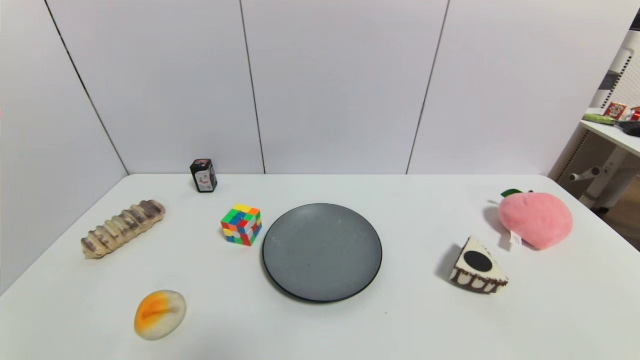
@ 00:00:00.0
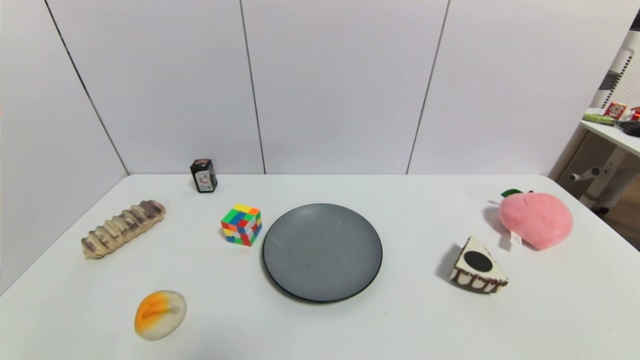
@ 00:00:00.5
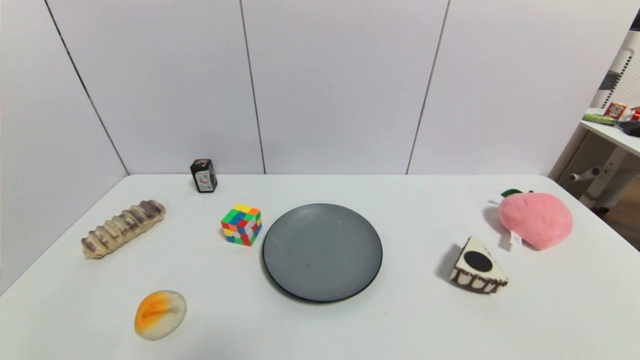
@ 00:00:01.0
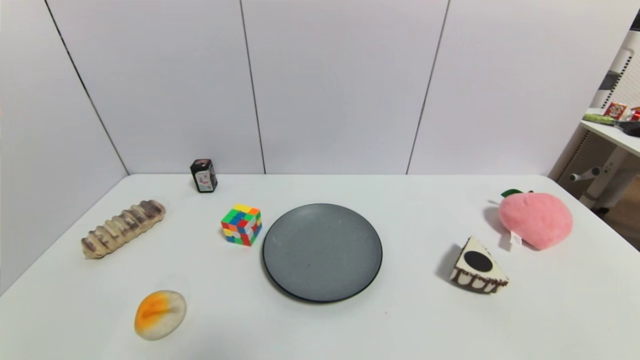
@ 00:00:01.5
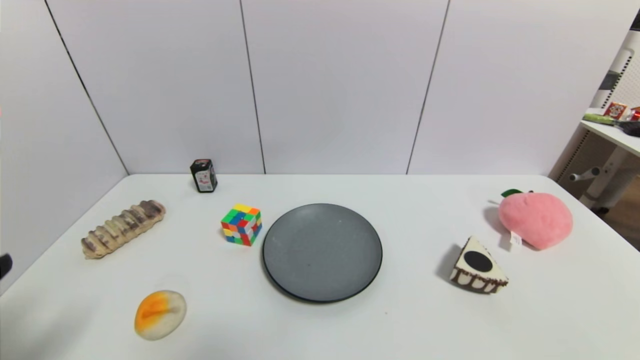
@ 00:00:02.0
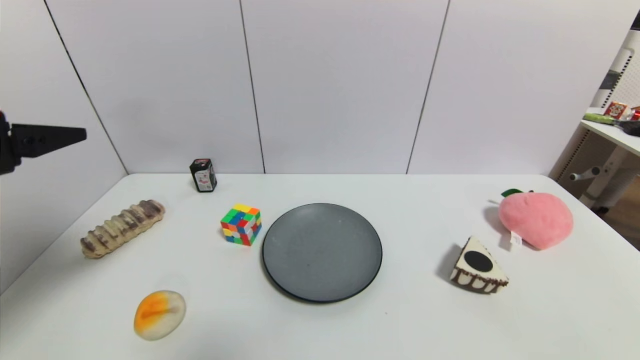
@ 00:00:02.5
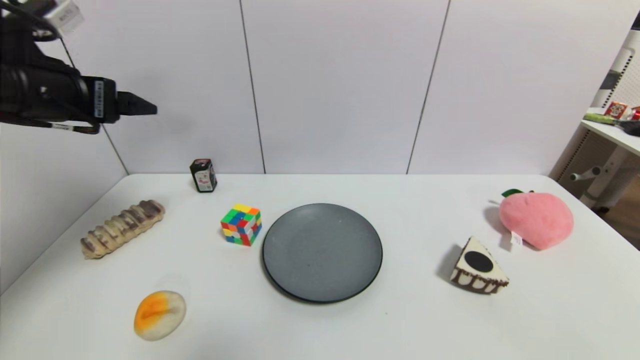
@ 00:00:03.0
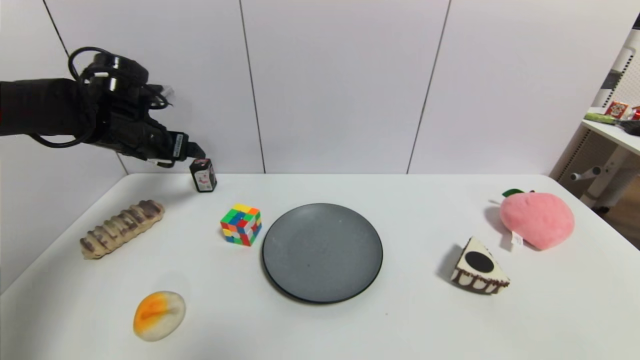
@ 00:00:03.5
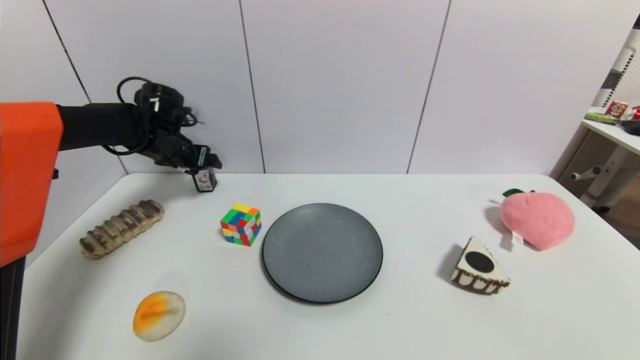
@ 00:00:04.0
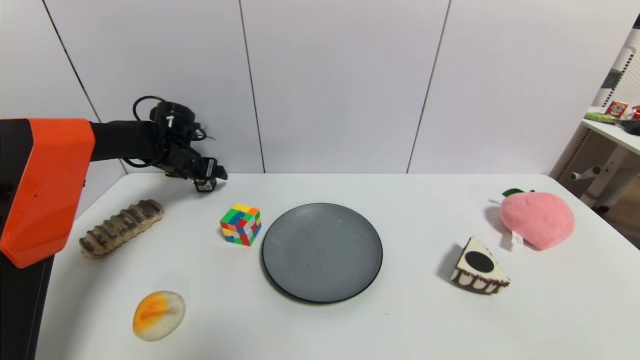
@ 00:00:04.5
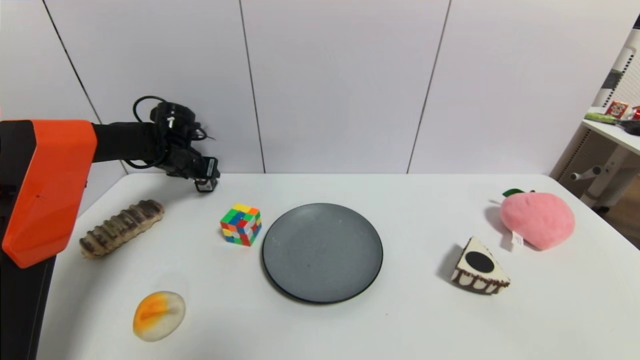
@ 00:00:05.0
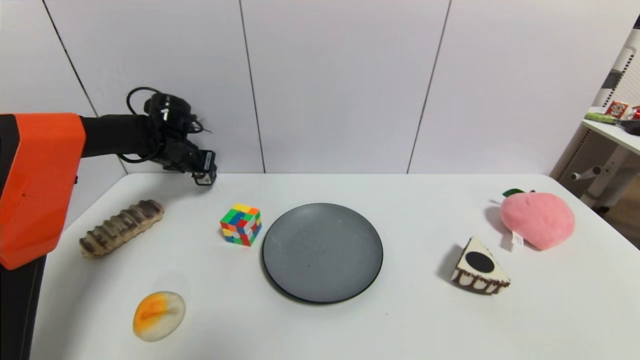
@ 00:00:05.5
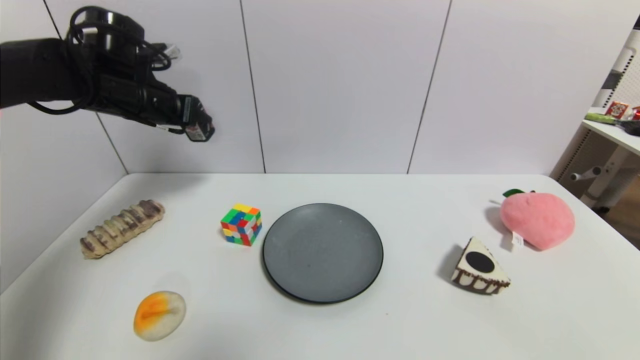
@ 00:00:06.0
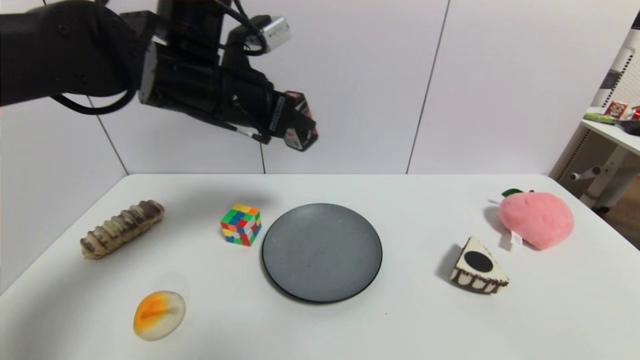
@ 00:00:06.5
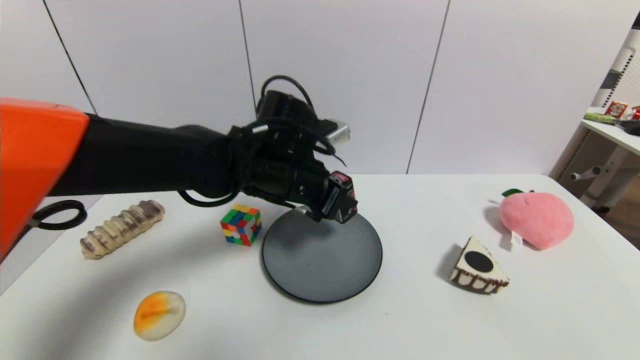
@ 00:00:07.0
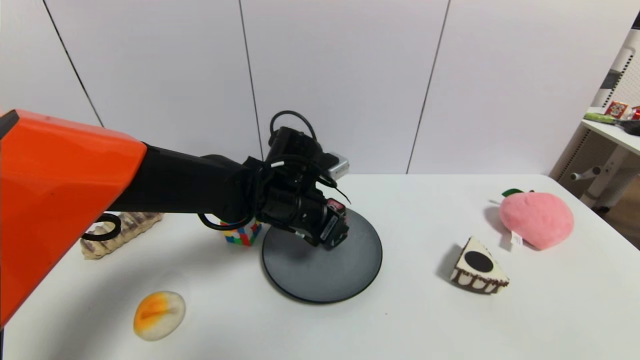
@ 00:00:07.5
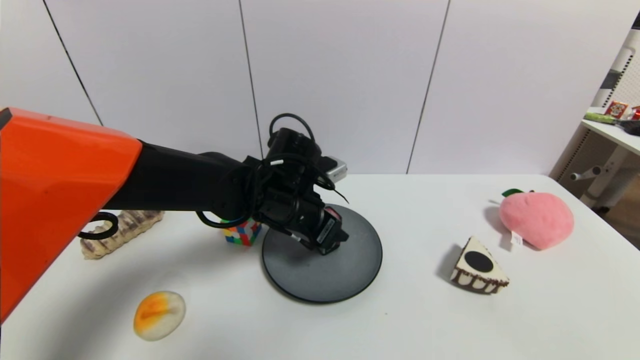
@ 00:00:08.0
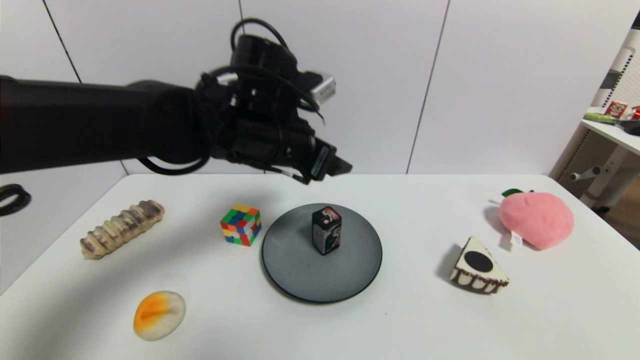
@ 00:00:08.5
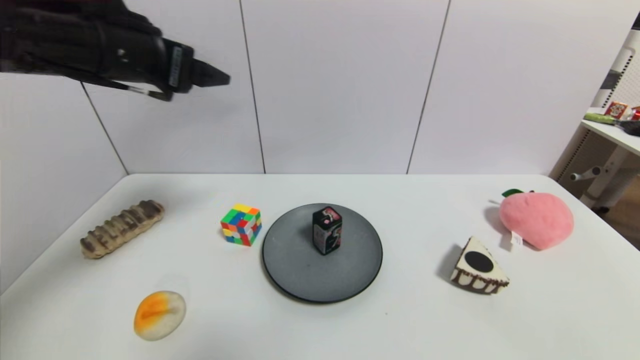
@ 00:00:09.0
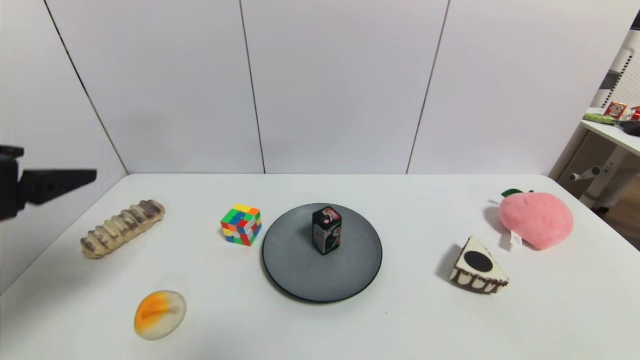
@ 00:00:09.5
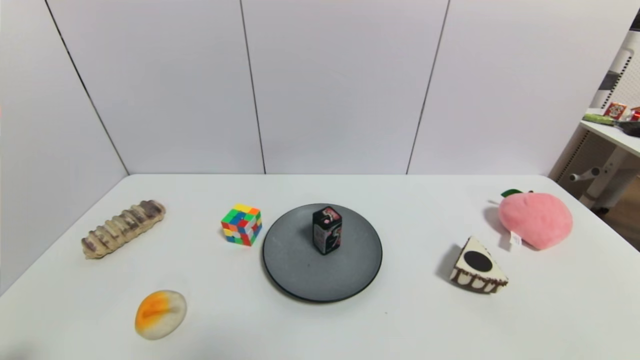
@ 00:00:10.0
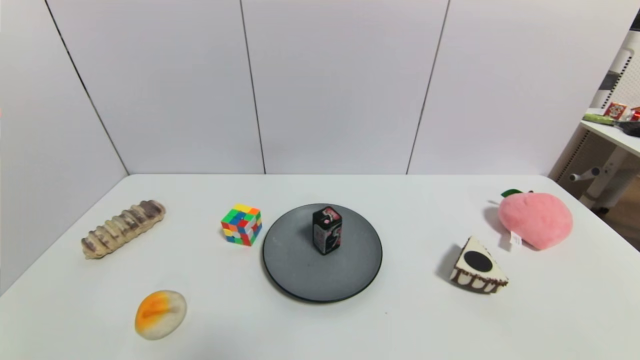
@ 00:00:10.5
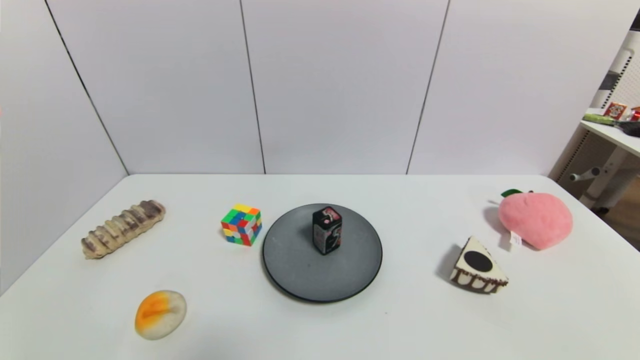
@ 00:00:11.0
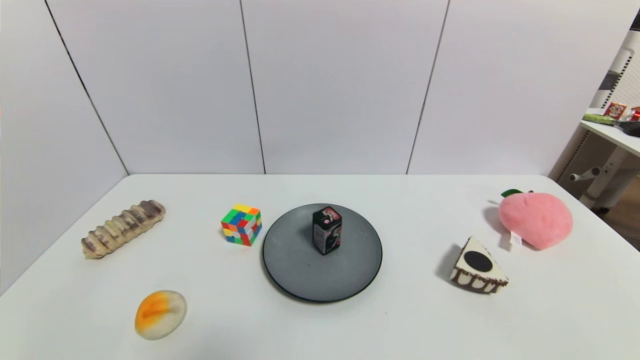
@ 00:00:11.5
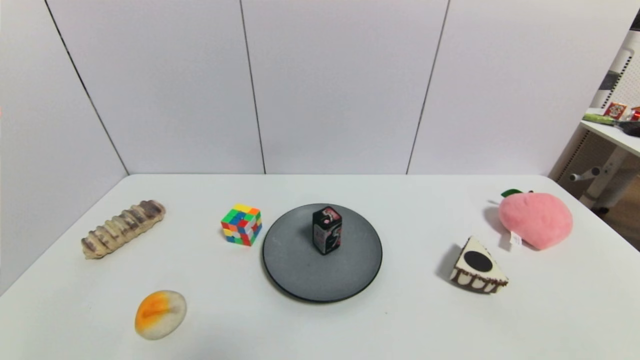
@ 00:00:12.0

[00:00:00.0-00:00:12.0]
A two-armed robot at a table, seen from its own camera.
Task of the whole recording: use a gripper to pick the target object and place on the gray plate.
Step, 00:00:00.0 to 00:00:05.0: Grasp the square chewing gum with the left gripper.
Step, 00:00:05.5 to 00:00:08.0: Place the square chewing gum on the gray plate with the left gripper.
00:00:00.0 to 00:00:02.0: The left gripper heads upward, covering about 15 cm.
00:00:02.0 to 00:00:04.0: The left gripper heads forward, covering approximately 40 cm.
00:00:04.0 to 00:00:06.0: The left gripper shifts some 10 cm upward and backward, and closes up.
00:00:06.0 to 00:00:08.0: The left gripper shifts roughly 25 cm to the right and downward, and opens its fingers.
00:00:08.0 to 00:00:10.0: The left gripper heads backward and to the left, covering approximately 40 cm, and opens up.

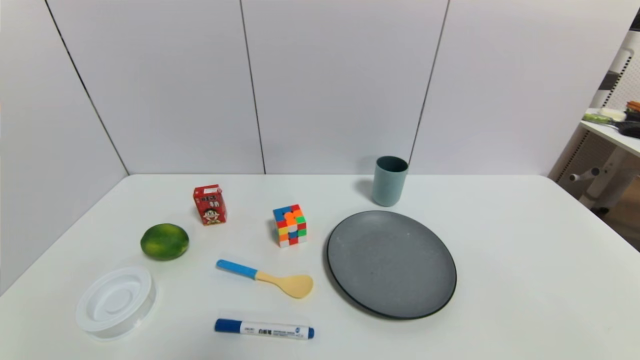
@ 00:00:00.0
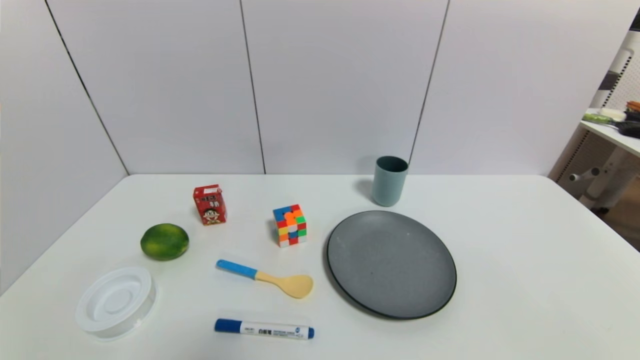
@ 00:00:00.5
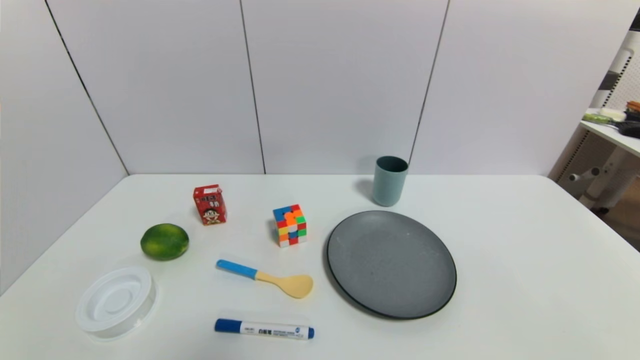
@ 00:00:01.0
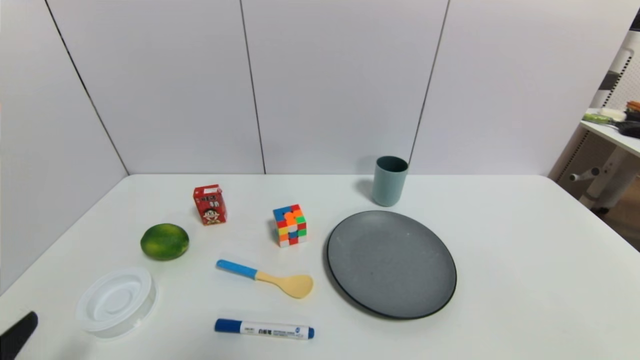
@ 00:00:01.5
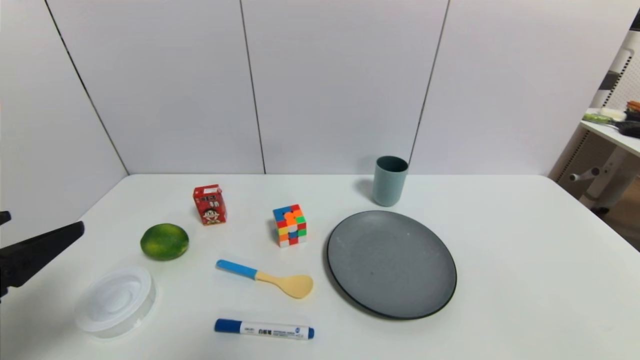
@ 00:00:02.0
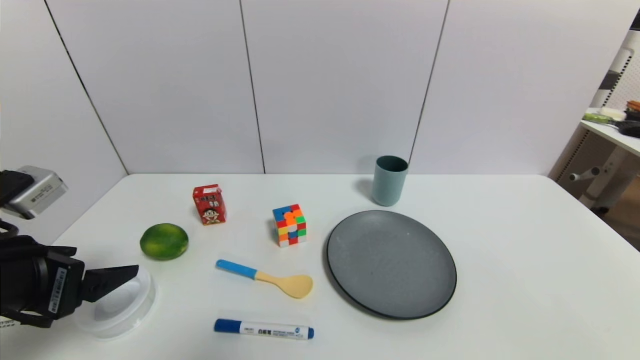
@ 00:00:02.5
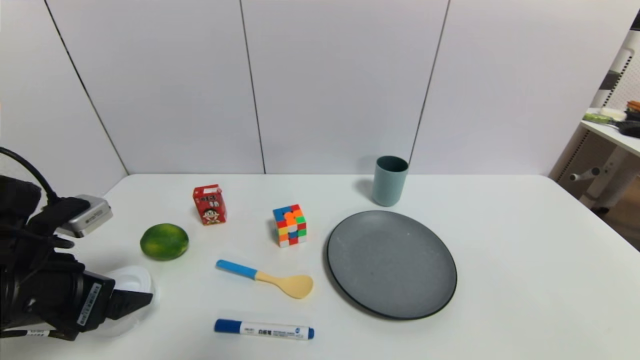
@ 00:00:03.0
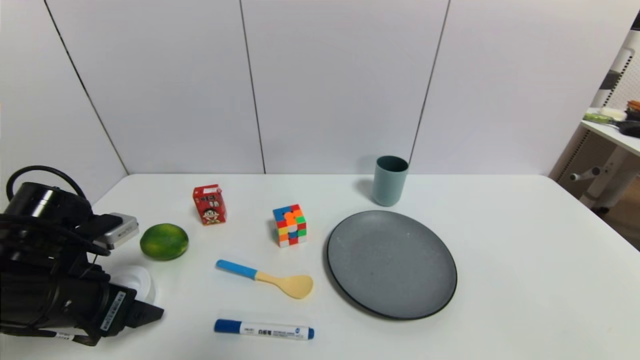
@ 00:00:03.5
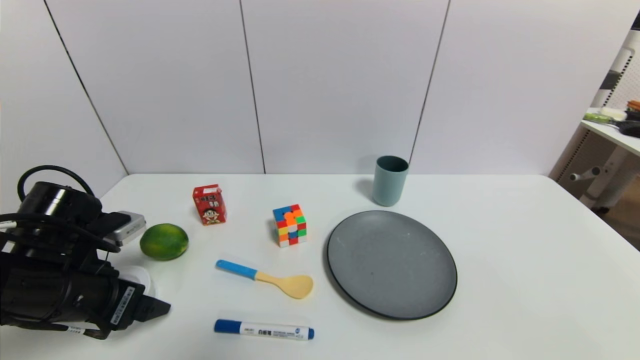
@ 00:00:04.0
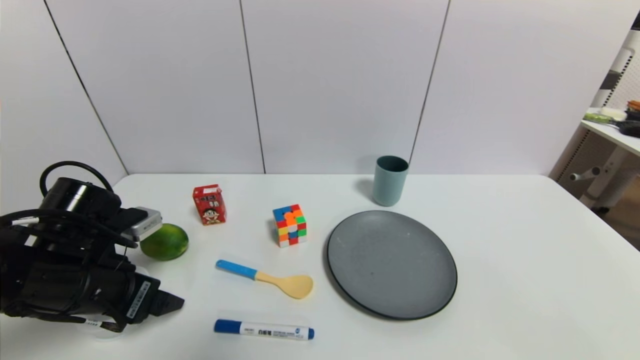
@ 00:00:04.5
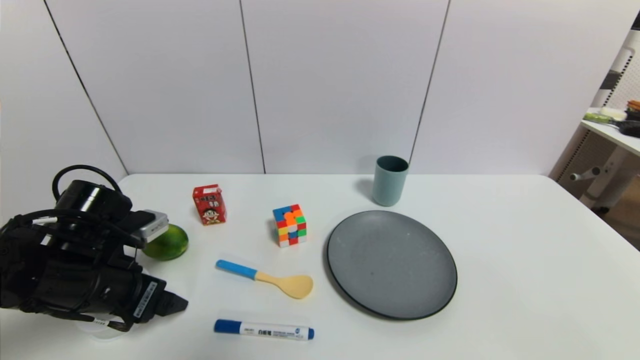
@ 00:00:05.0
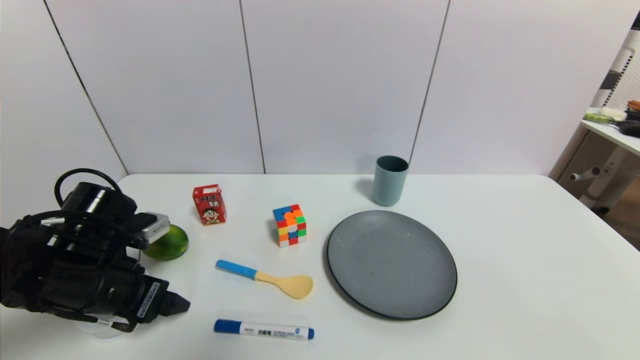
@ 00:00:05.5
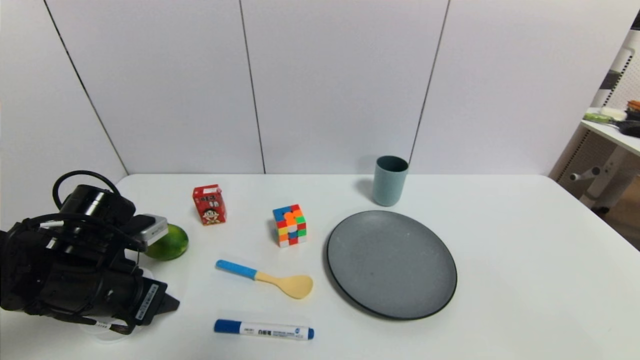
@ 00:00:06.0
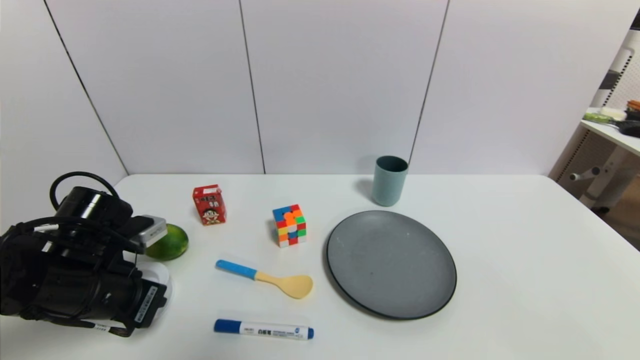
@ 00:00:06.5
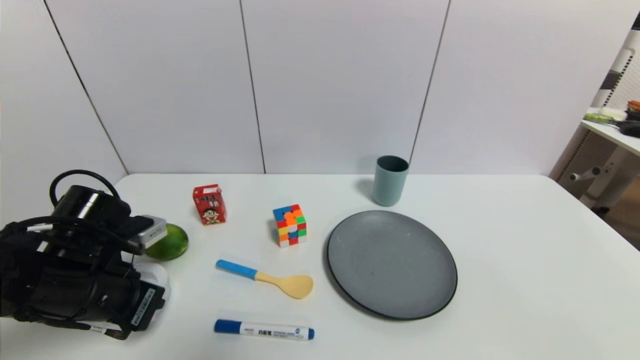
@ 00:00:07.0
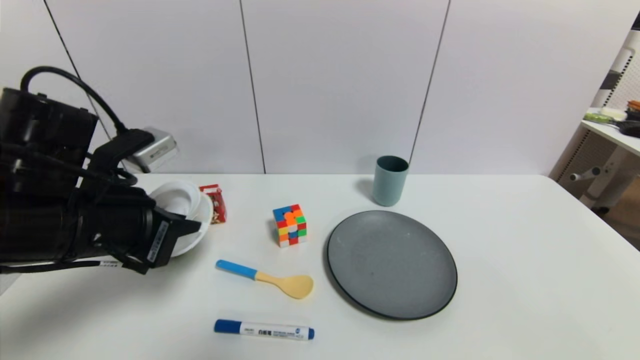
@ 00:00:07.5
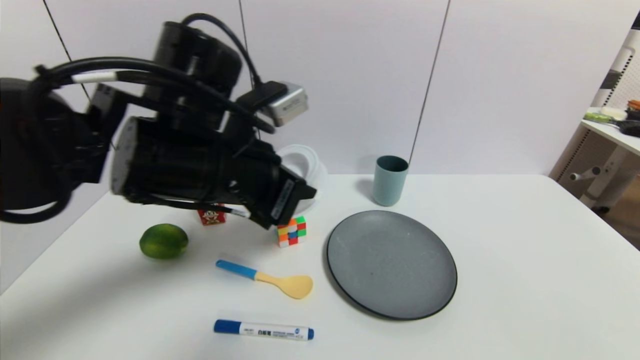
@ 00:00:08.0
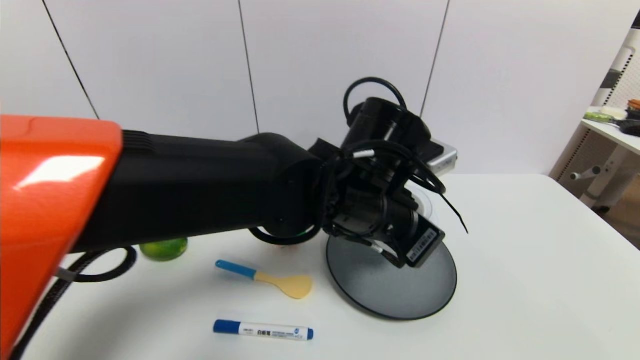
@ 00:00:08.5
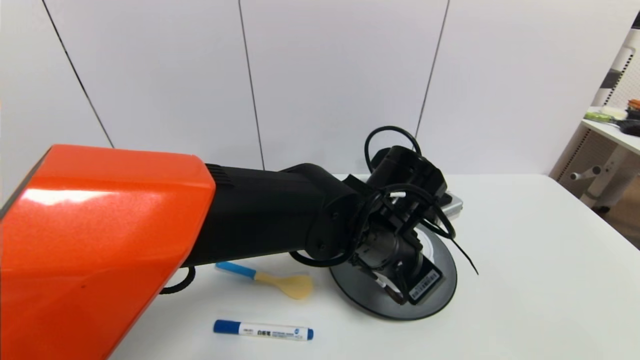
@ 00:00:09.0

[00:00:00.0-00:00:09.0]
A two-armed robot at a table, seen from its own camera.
Task of the whole recording: use a gripper to pick the target object and place on the gray plate.
Step, 00:00:00.0 to 00:00:06.5: Grasp the tape with the left gripper.
00:00:00.0 to 00:00:02.0: The left gripper goes about 20 cm upward and forward.
00:00:02.0 to 00:00:04.5: The left gripper is displaced forward and downward by about 15 cm.
00:00:04.5 to 00:00:07.0: The left gripper closes up.
00:00:07.0 to 00:00:09.0: The left gripper travels to the right by about 30 cm.
